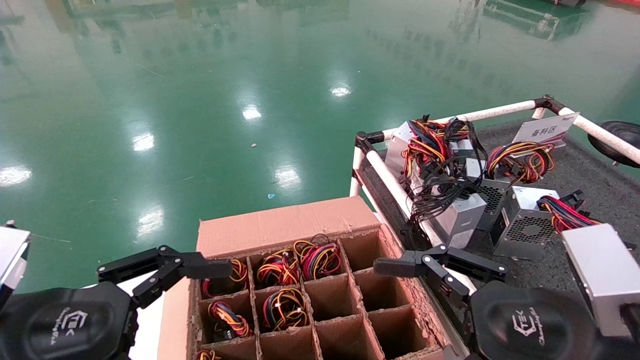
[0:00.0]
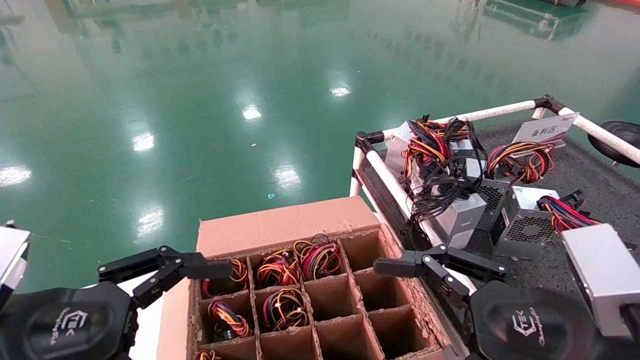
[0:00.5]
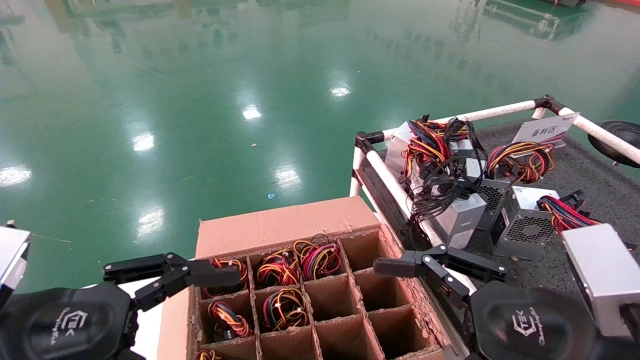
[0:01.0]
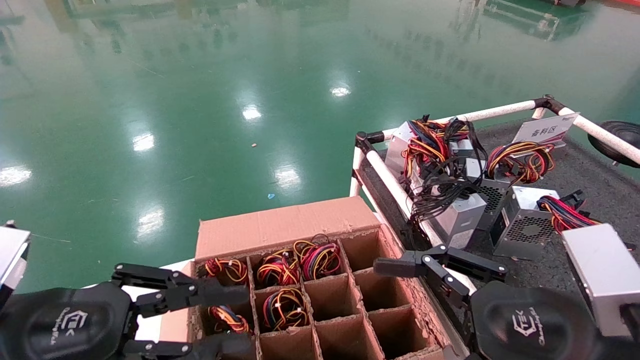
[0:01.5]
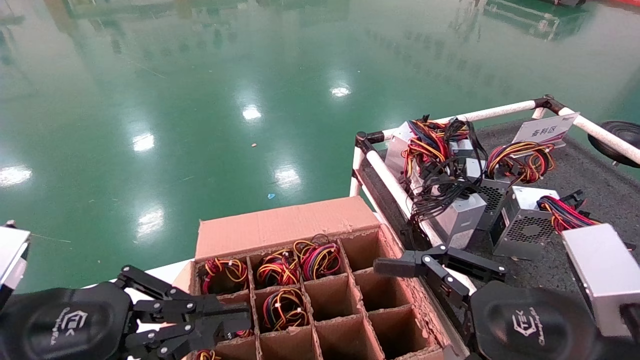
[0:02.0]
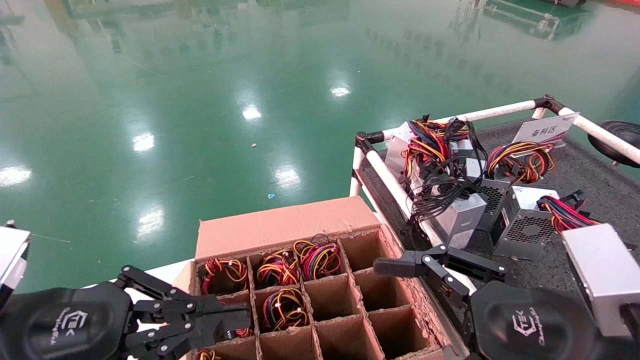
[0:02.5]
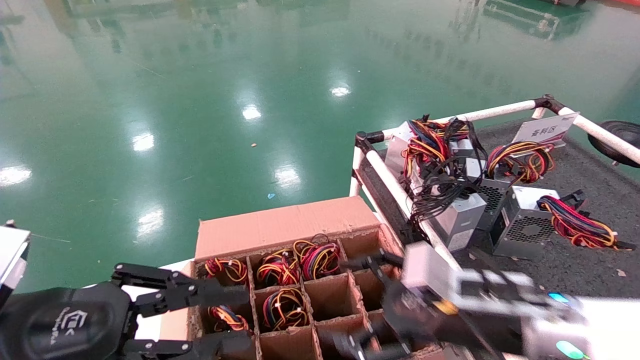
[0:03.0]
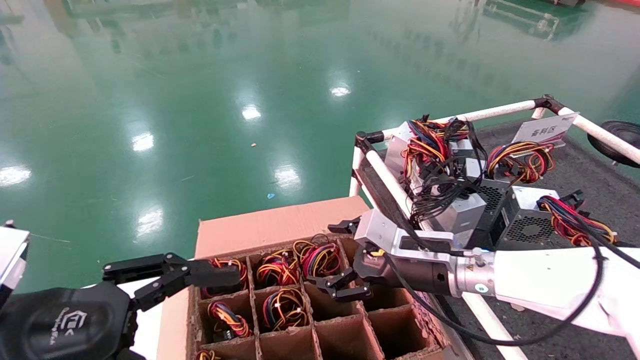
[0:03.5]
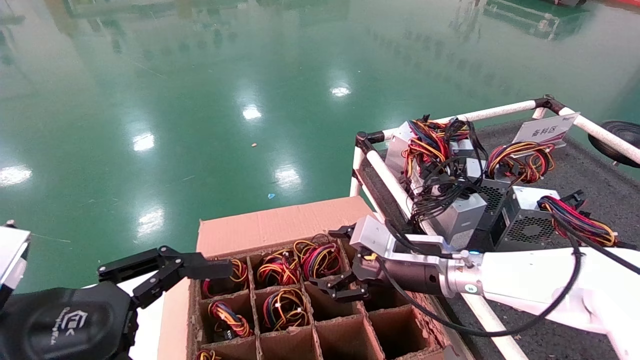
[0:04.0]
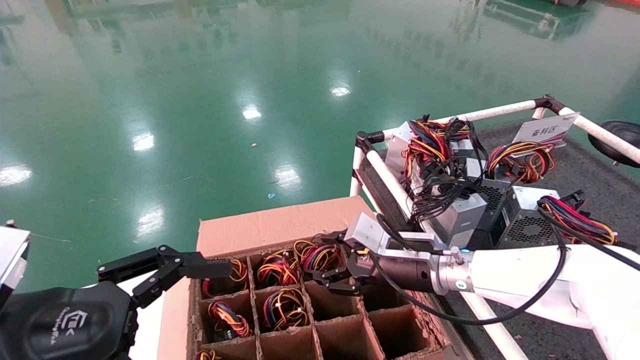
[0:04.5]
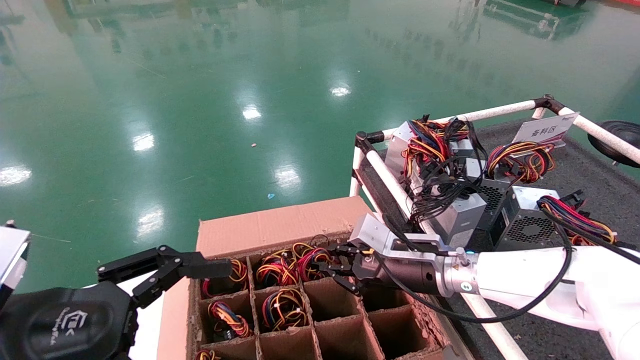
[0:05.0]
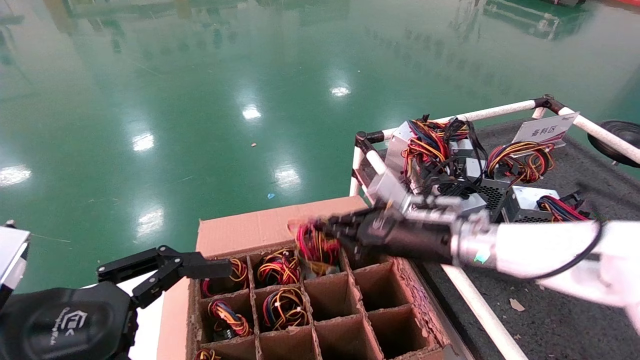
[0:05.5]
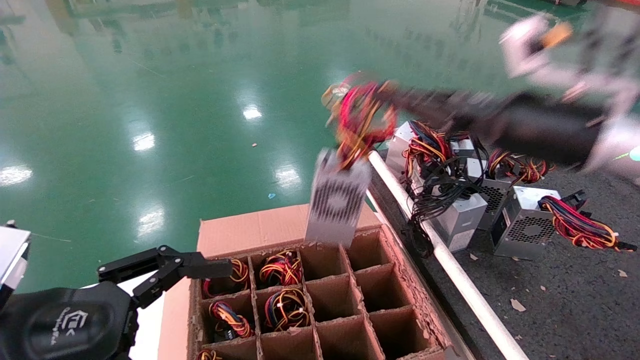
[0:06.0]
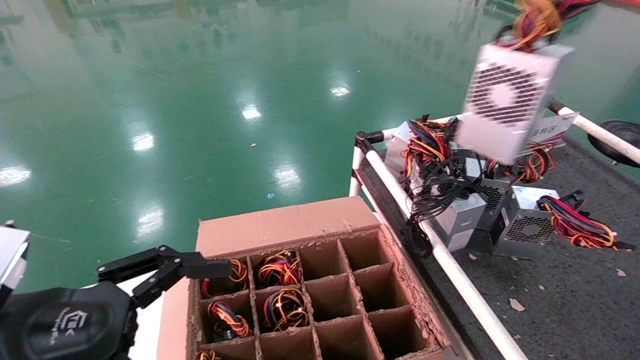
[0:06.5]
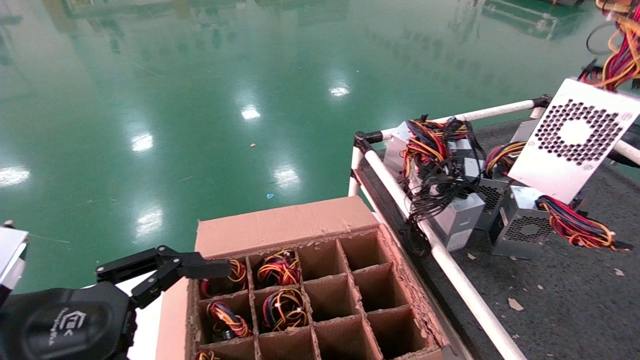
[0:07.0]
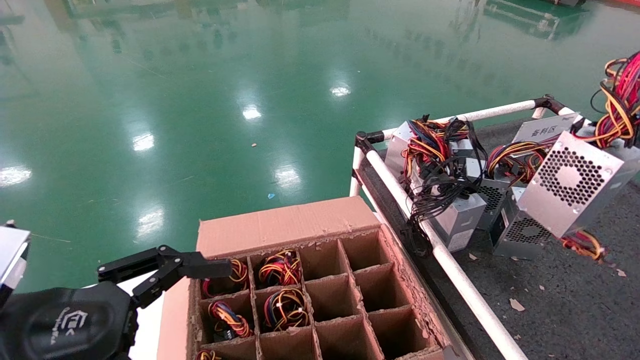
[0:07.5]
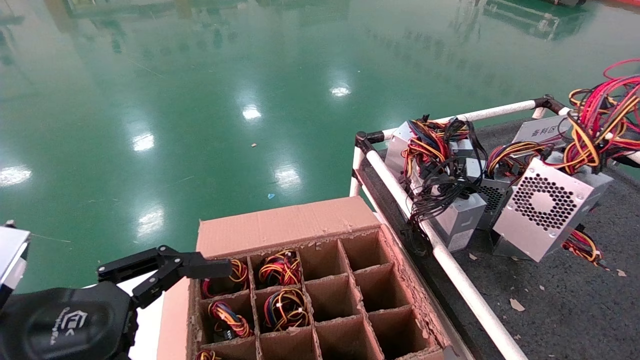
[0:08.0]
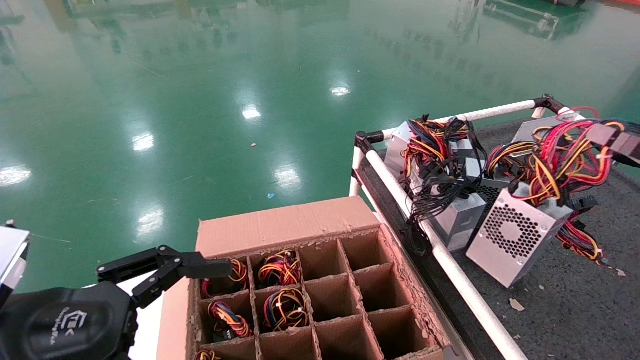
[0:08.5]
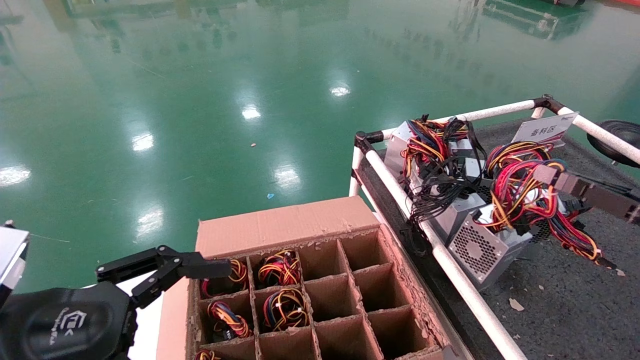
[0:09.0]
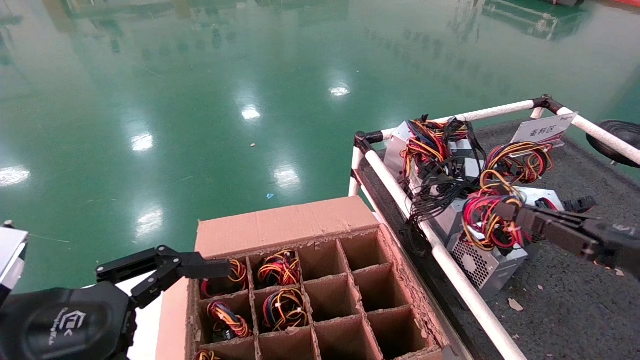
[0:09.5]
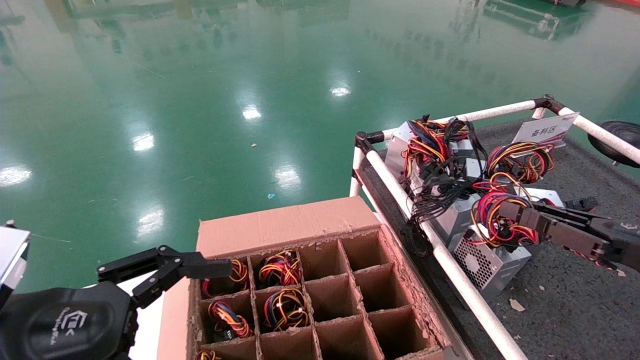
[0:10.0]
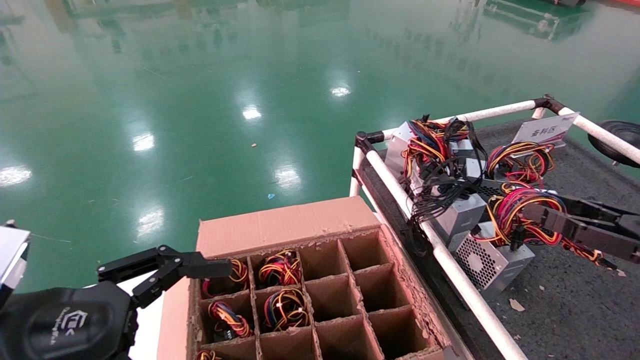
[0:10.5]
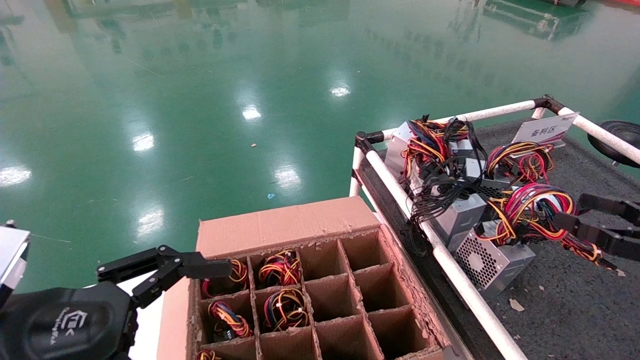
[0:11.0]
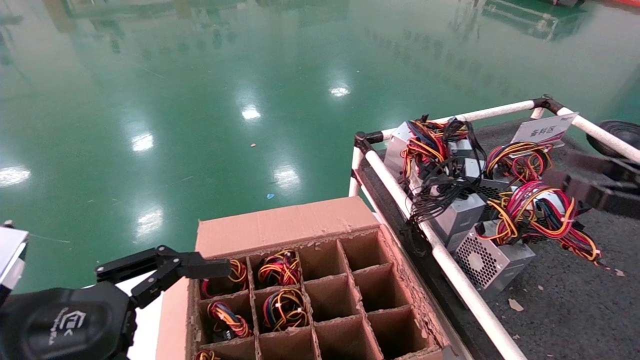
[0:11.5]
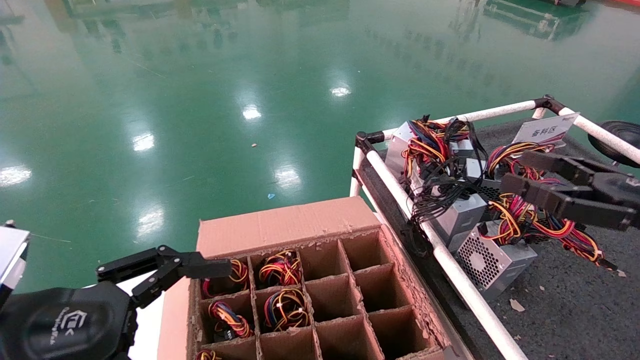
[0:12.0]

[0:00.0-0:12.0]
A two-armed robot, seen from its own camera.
Step, 0:03.0 to 0:05.0: Grab and lift the power supply from the large box.
Step, 0:05.5 to 0:10.5: Place the power supply on the operating table.
0:00.0 to 0:02.0: The left gripper closes up.
0:02.0 to 0:04.0: The left gripper opens. Meanwhile the right gripper heads forward, covering roughly 25 cm.
0:04.0 to 0:06.0: The right gripper goes about 25 cm upward, to the right and backward, and closes.
0:06.0 to 0:08.0: The right gripper shifts approximately 25 cm to the right and backward.
0:08.0 to 0:10.0: The right gripper travels downward, to the left and forward by approximately 10 cm.
0:10.0 to 0:12.0: The right gripper goes about 5 cm upward, and opens.

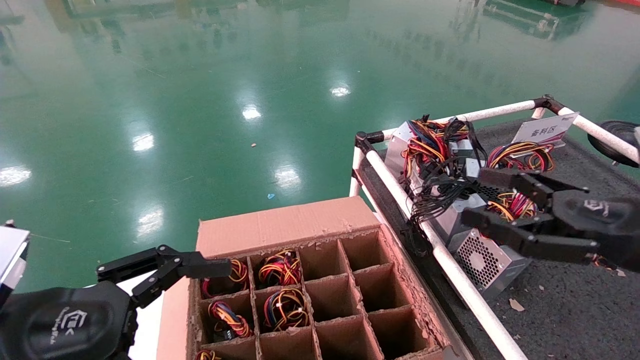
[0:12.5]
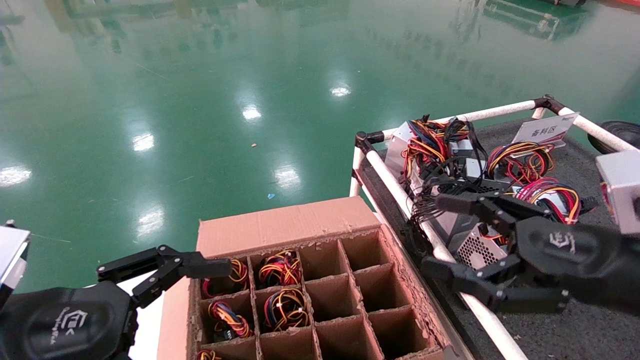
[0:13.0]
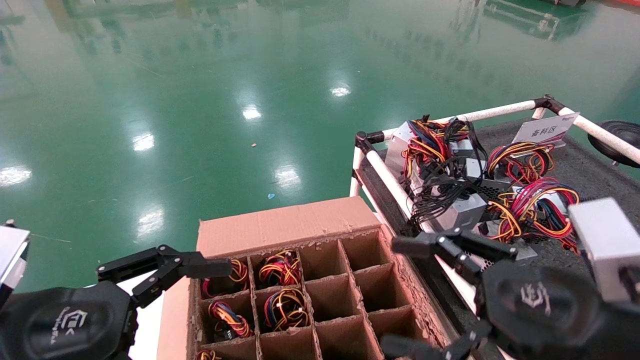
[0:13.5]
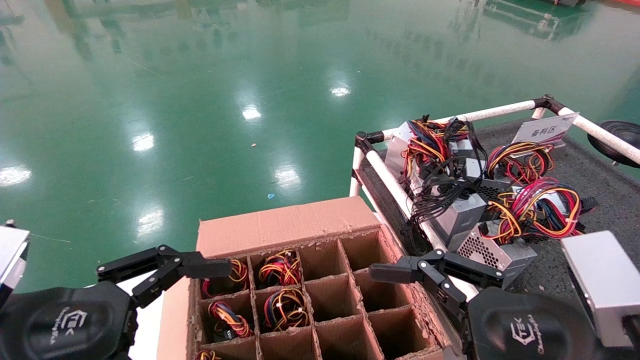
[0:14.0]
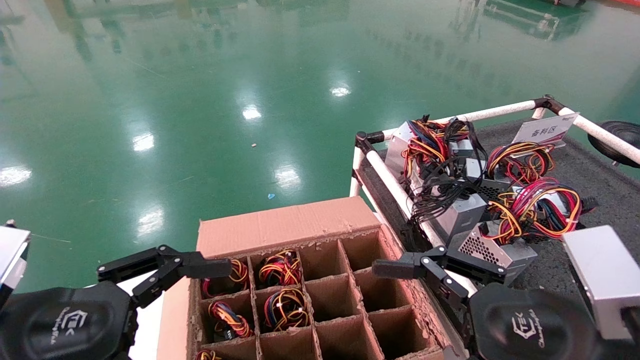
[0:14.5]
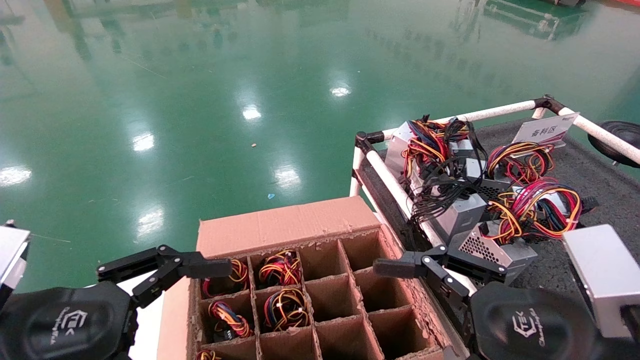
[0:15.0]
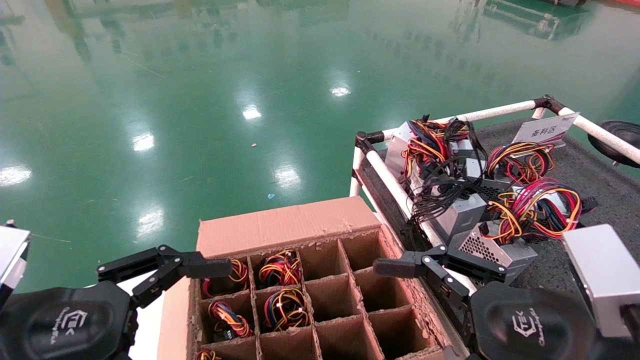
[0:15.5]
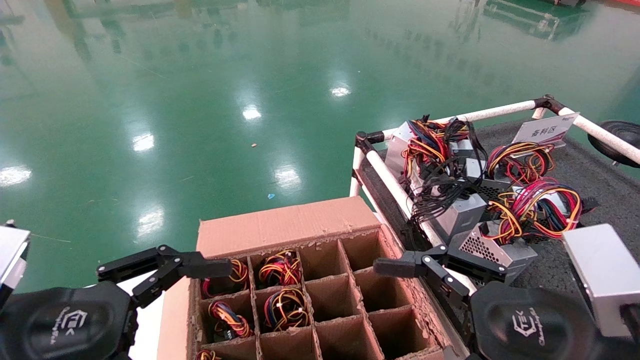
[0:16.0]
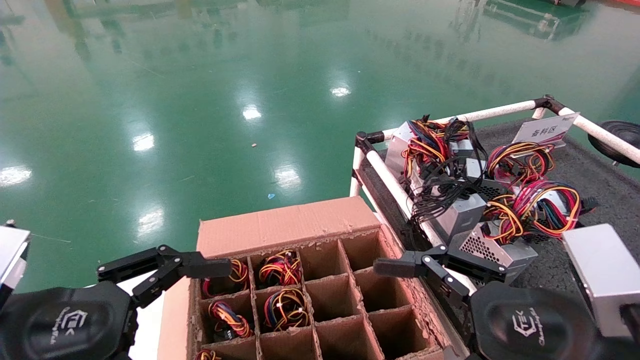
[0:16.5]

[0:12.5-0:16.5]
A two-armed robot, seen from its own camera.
0:12.5 to 0:14.5: The right gripper moves to the left and backward, about 15 cm.
0:14.5 to 0:16.5: Neither gripper changes place.

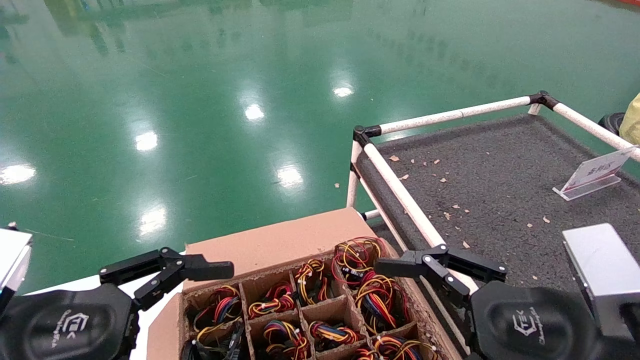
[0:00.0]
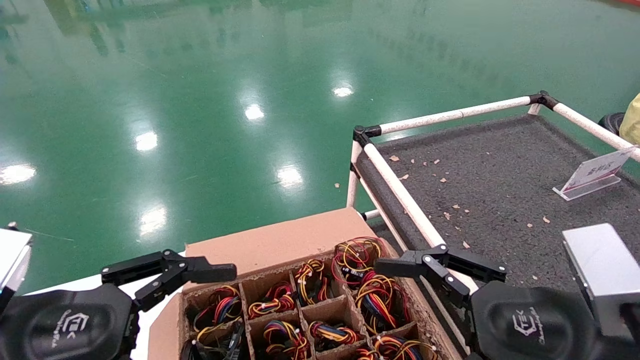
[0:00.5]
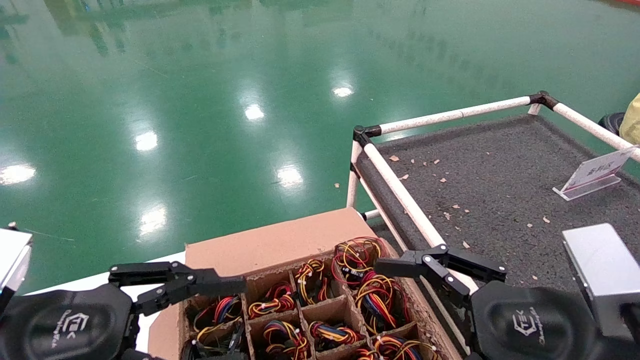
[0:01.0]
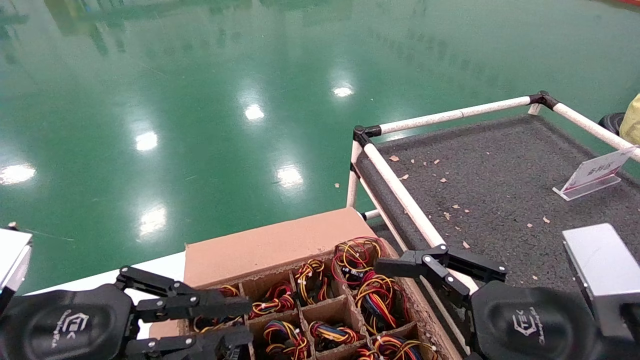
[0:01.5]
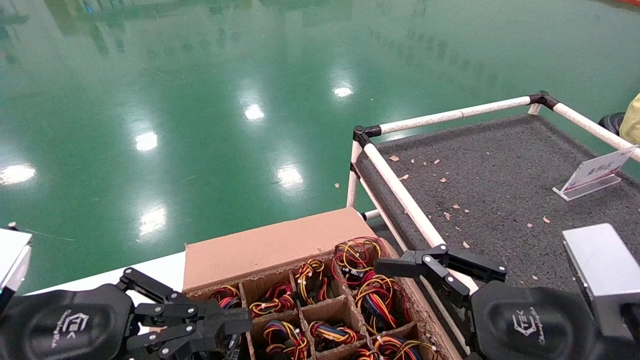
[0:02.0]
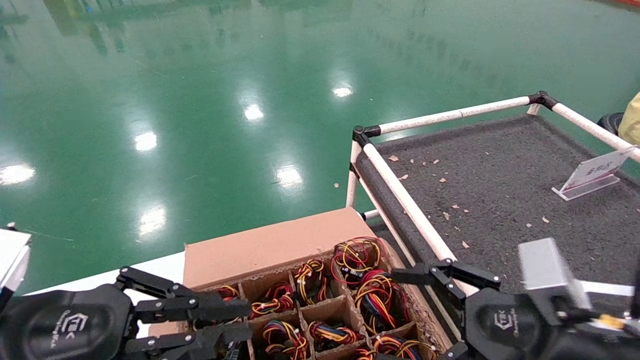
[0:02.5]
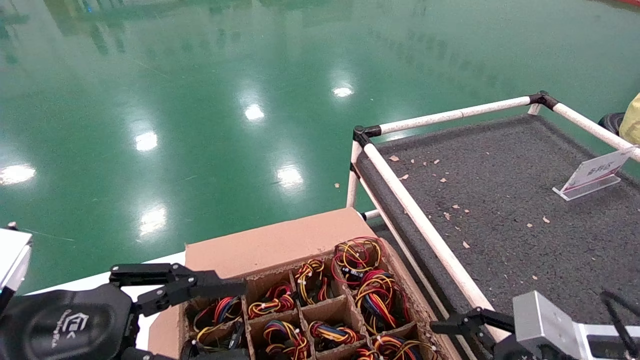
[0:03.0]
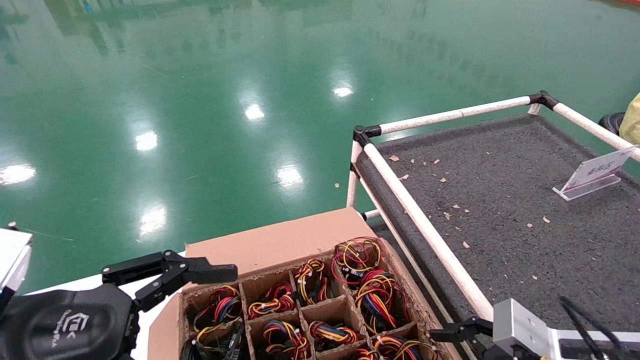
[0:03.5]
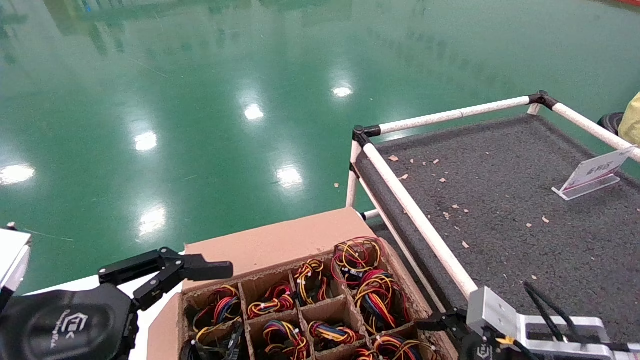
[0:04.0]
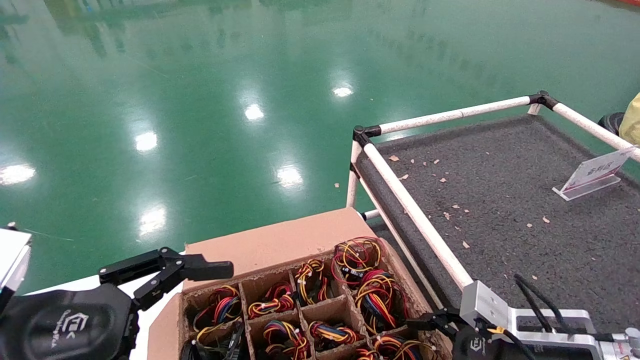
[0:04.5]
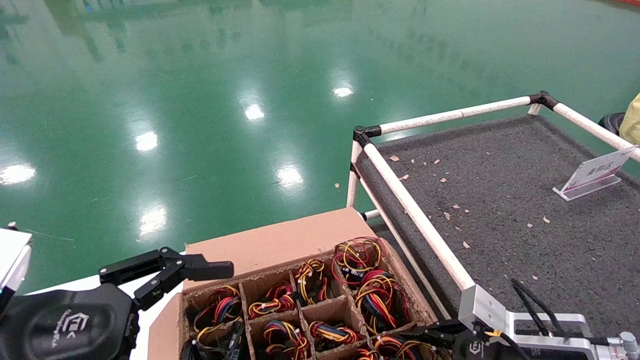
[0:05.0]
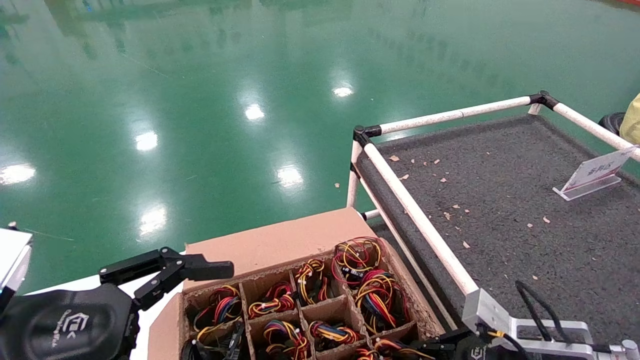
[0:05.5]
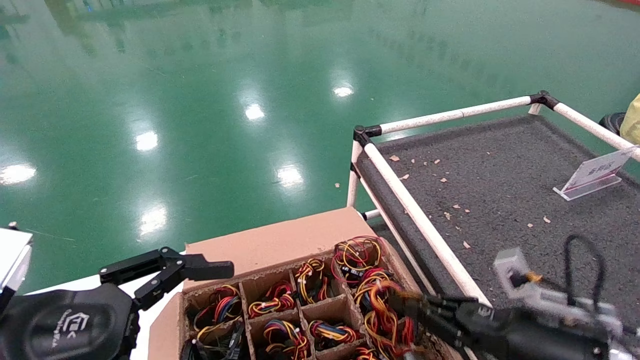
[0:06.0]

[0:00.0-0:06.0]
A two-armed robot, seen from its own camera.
Step, 0:02.5 to 0:05.5: Grab and lift the power supply from the large box.
0:00.0 to 0:02.0: The left gripper closes its fingers.
0:02.0 to 0:04.0: The left gripper opens its fingers, while the right gripper is displaced downward and forward by some 15 cm.
0:04.0 to 0:06.0: The right gripper closes.
